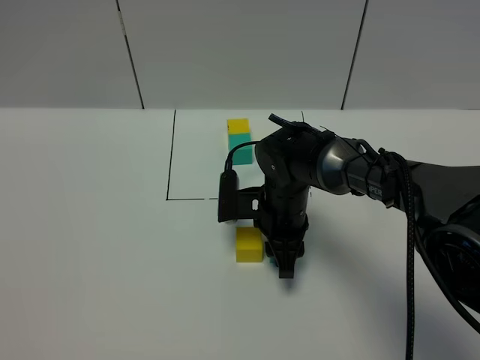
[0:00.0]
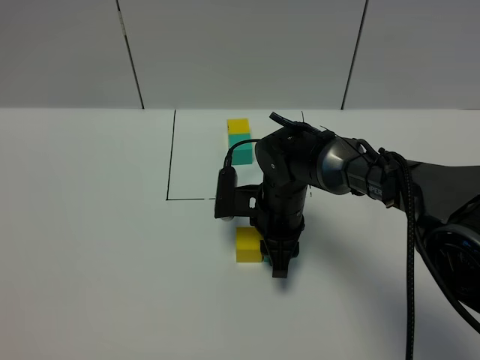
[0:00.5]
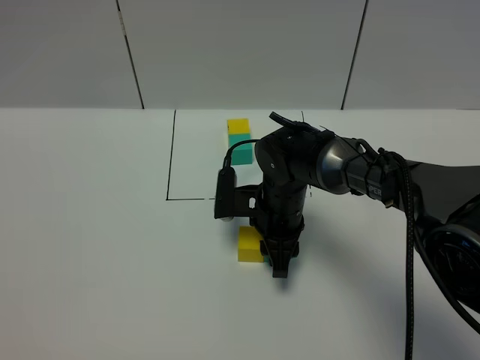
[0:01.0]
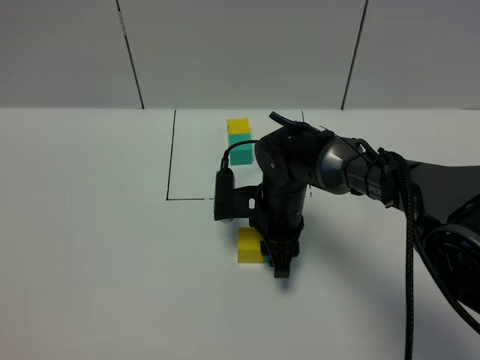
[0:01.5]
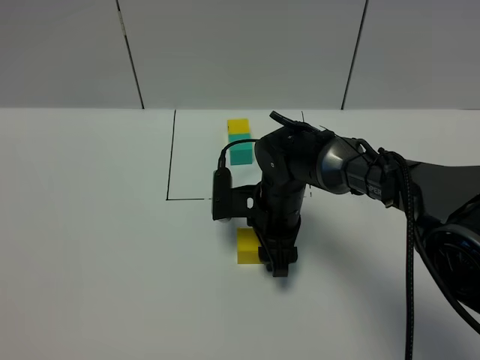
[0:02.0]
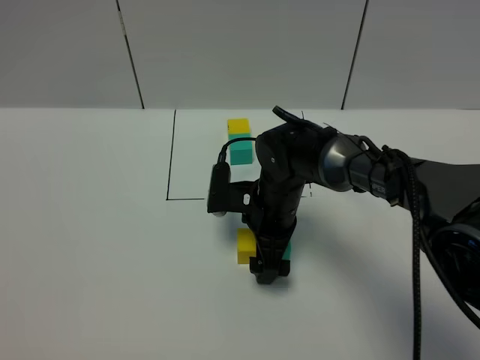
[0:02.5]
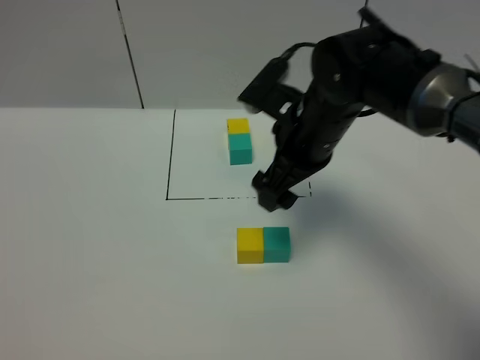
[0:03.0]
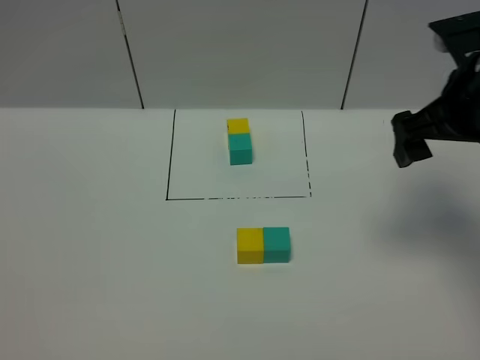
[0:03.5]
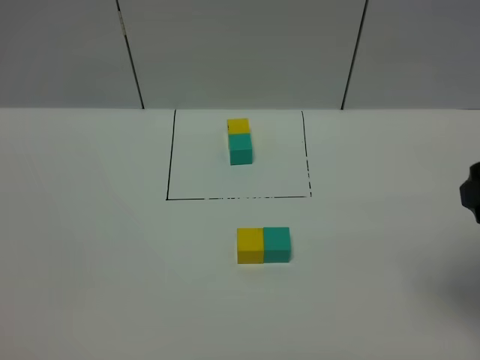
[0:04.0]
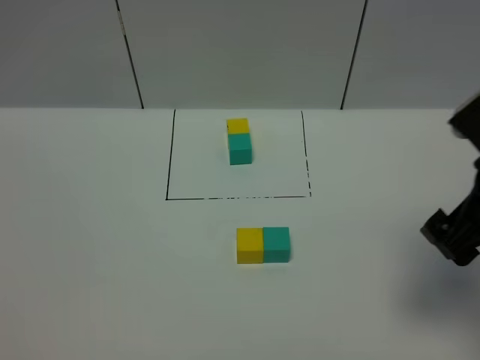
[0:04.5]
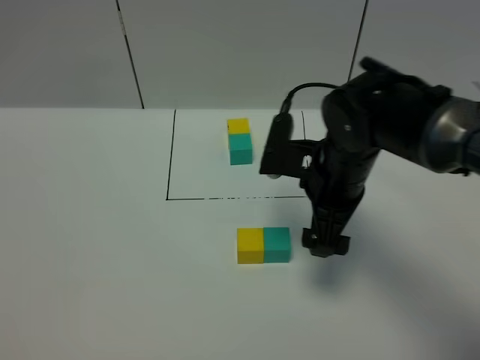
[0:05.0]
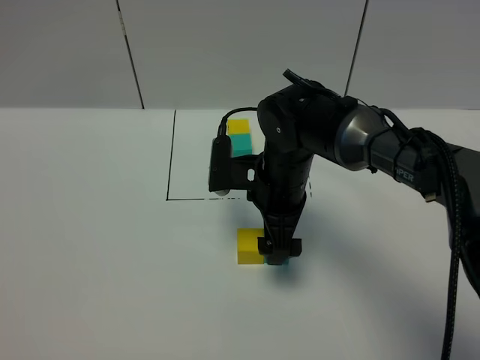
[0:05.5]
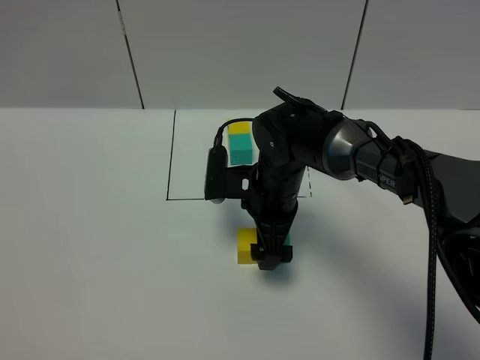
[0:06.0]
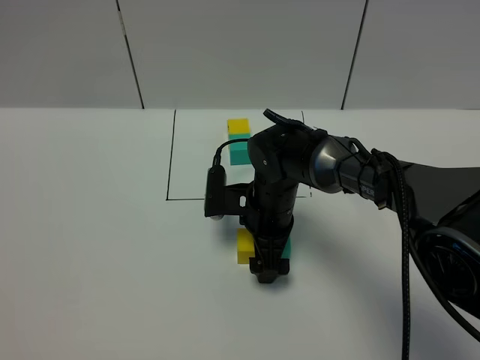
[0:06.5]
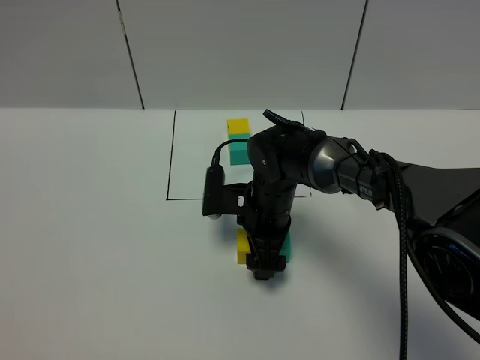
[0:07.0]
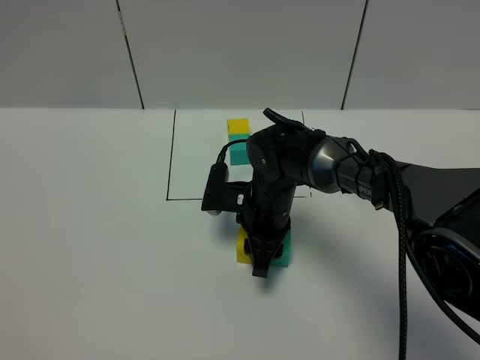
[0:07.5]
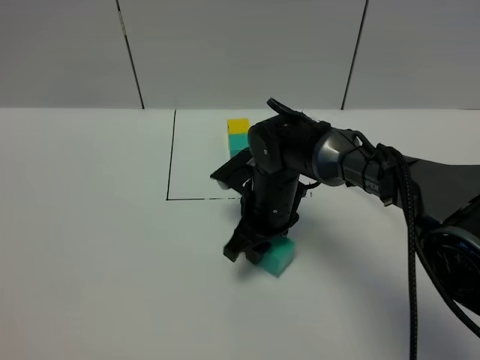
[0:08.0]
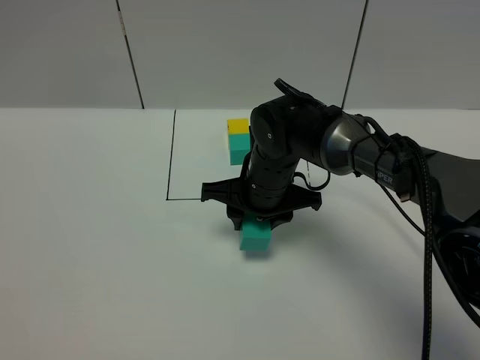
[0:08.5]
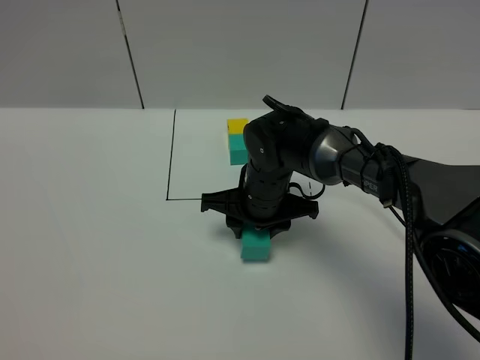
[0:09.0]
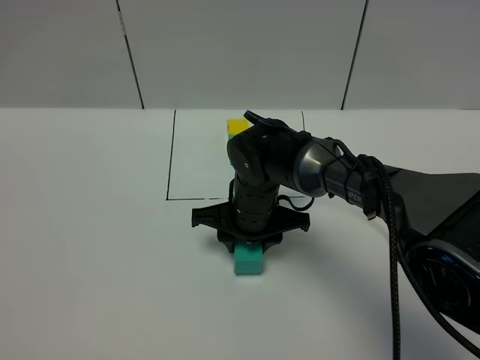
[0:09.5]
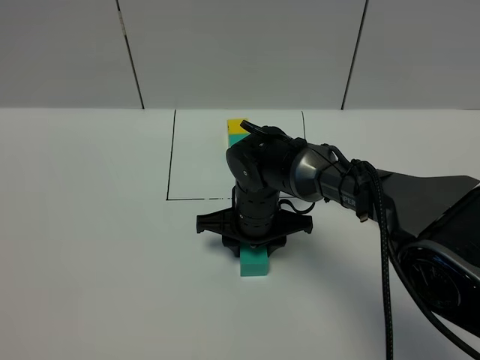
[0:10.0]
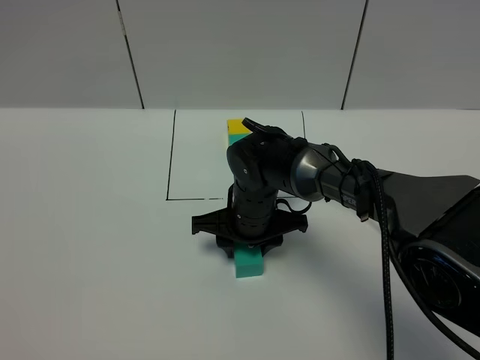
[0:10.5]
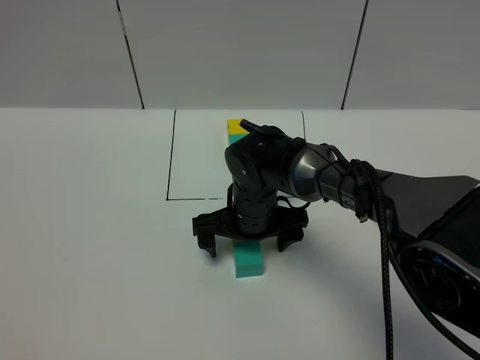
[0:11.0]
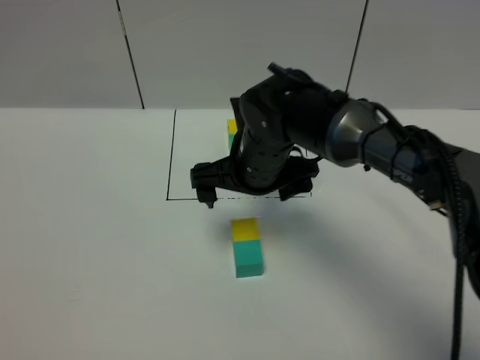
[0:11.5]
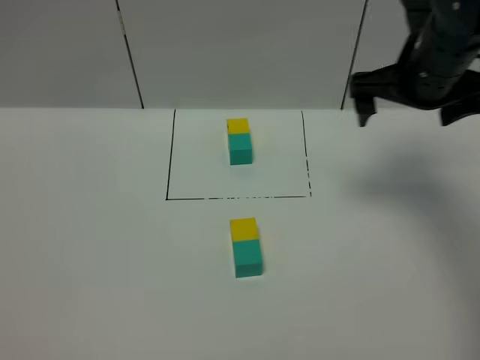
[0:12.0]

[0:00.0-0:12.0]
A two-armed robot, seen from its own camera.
Task of the whole recording: According to the building block template in front, assemble the scattered blocks together.
Step, 0:00.0 to 0:02.0: Put the green cube on the right of the yellow cube.
Step, 0:02.5 to 0:10.5: Adjust the pose of the building blocks.
0:00.0 to 0:02.0: The right gripper opens up.
0:02.0 to 0:04.0: The right gripper is displaced to the right, upward and backward by approximately 35 cm, and opens its fingers.
0:04.0 to 0:06.0: The right gripper heads to the left, downward and forward, covering roughly 35 cm.
0:06.0 to 0:08.0: The right gripper closes.
0:10.0 to 0:12.0: The right gripper moves upward and to the right, about 30 cm, and opens.

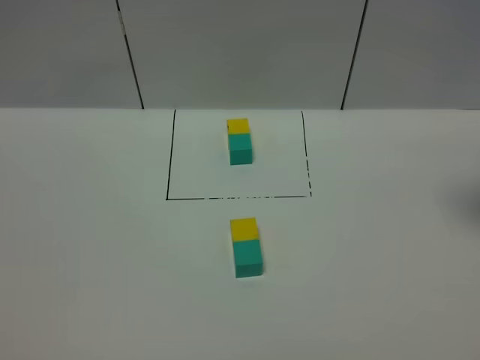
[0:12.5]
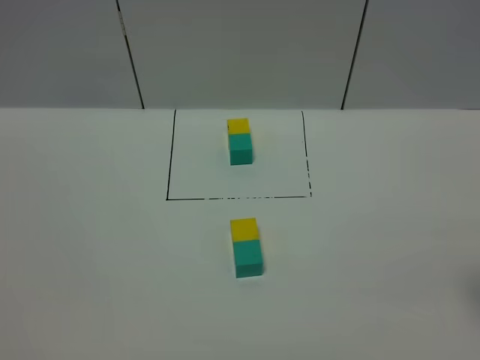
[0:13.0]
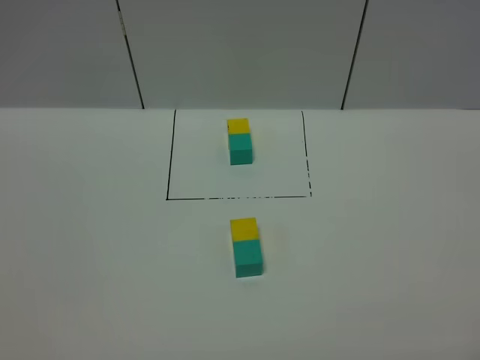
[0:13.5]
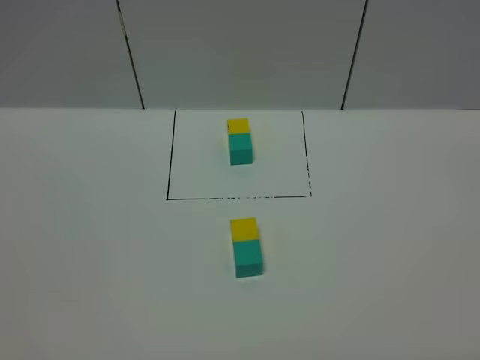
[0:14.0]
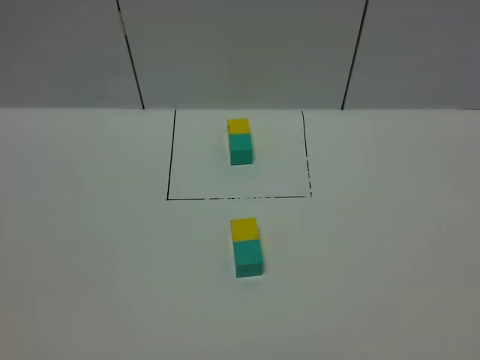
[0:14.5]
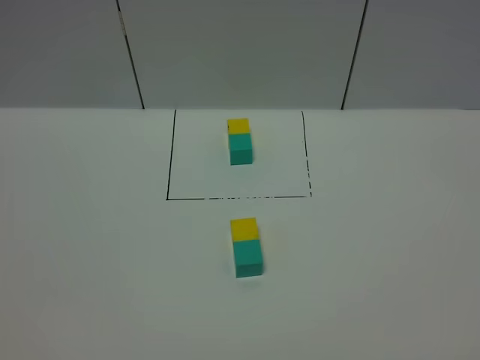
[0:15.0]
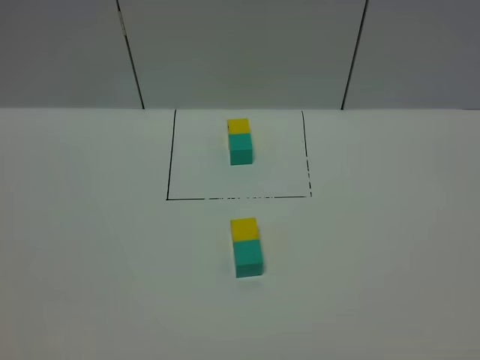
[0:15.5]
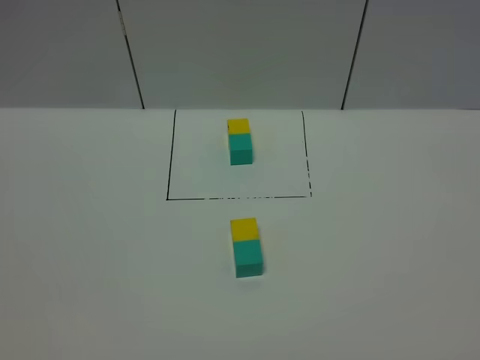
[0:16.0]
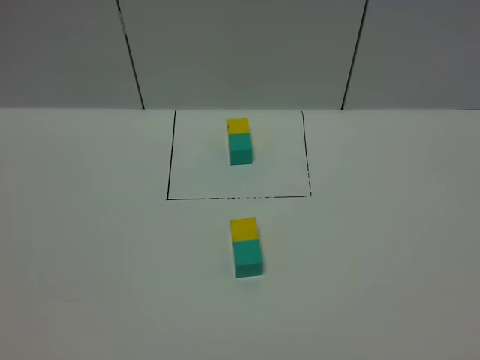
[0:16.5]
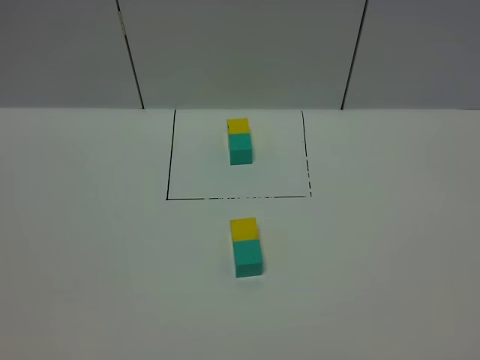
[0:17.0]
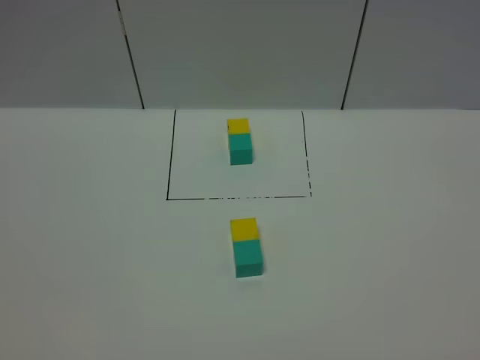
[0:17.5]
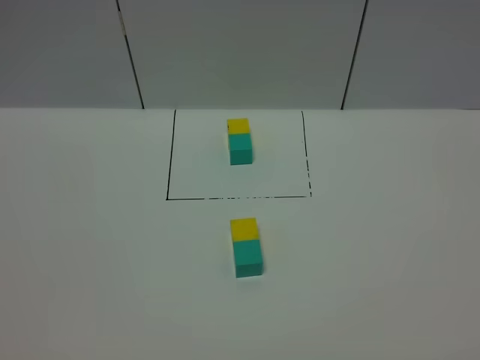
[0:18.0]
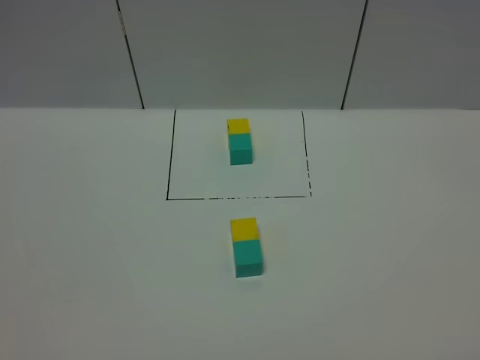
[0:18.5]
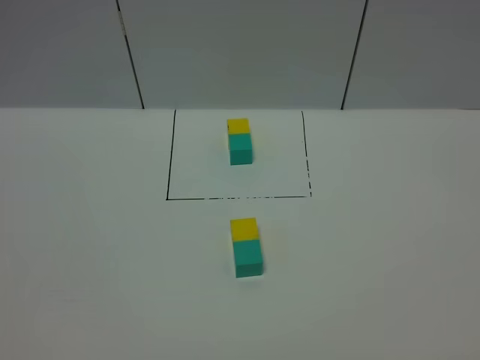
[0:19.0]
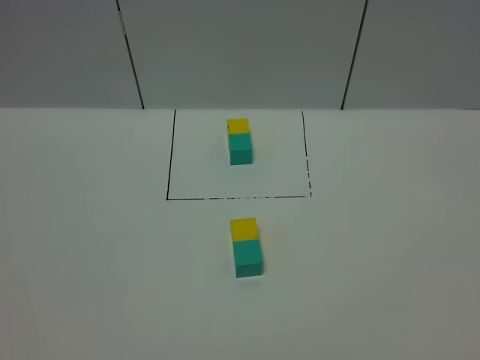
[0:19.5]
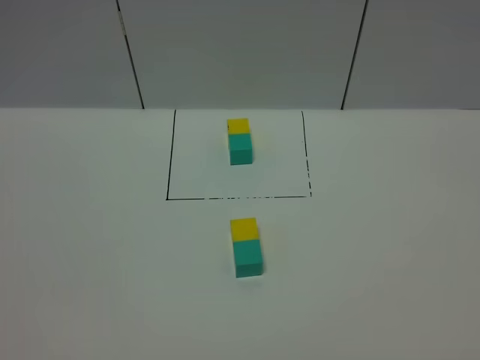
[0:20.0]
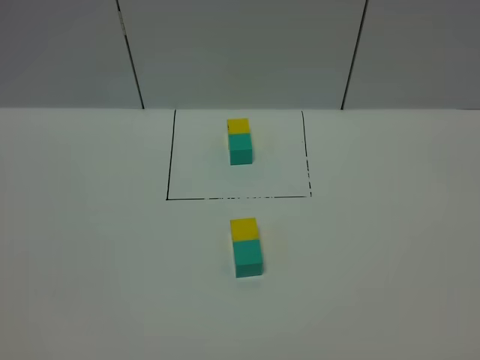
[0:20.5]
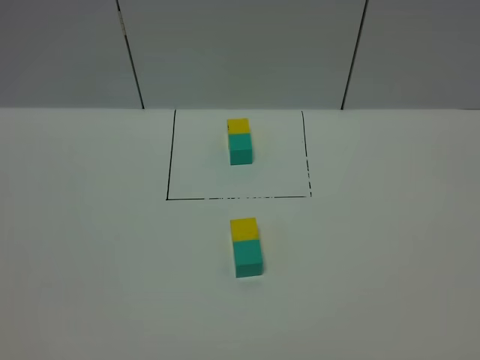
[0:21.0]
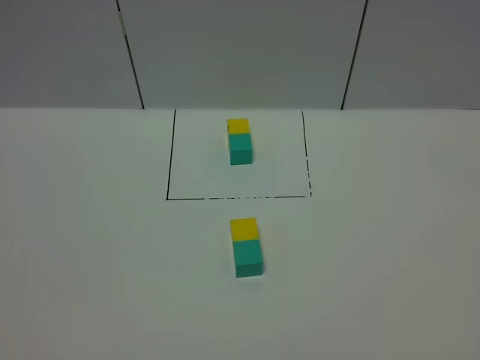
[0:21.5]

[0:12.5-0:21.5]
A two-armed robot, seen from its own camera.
Task of the whole recording: According to the building block template in front, assemble the scattered blocks together.
0:17.0 to 0:21.5: The two grippers keep their place.
